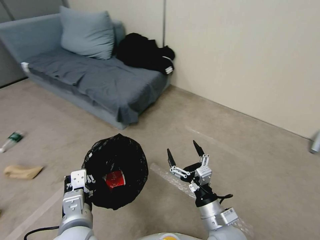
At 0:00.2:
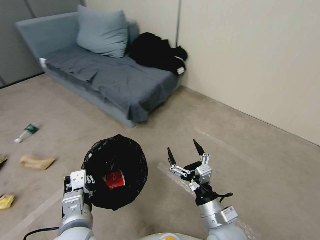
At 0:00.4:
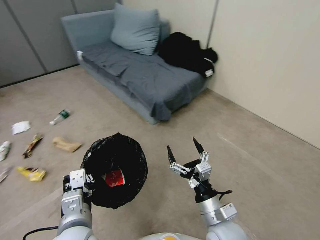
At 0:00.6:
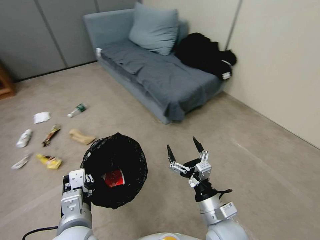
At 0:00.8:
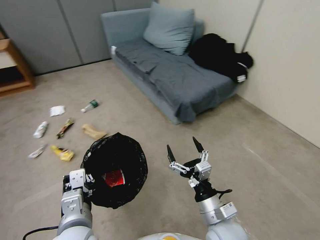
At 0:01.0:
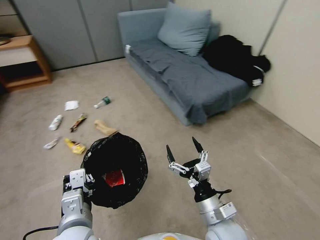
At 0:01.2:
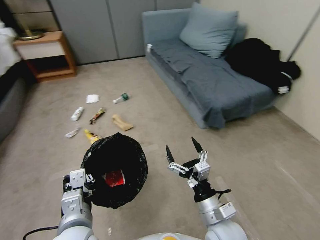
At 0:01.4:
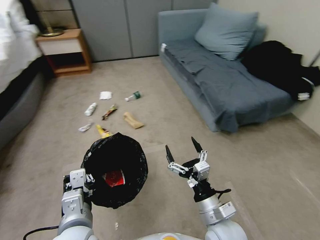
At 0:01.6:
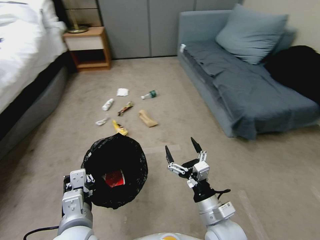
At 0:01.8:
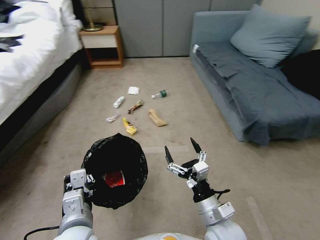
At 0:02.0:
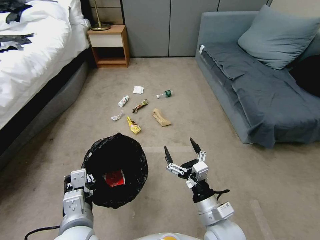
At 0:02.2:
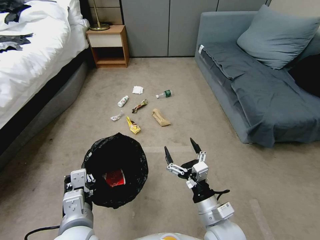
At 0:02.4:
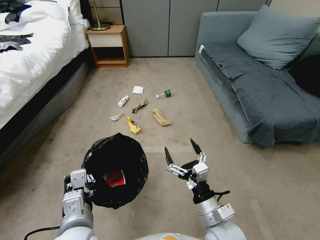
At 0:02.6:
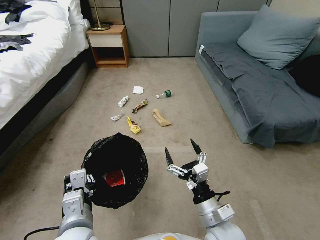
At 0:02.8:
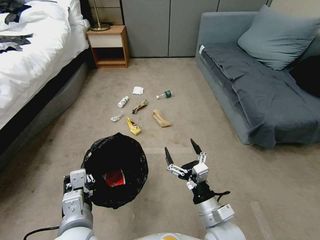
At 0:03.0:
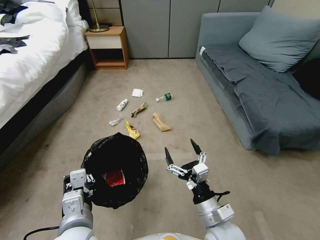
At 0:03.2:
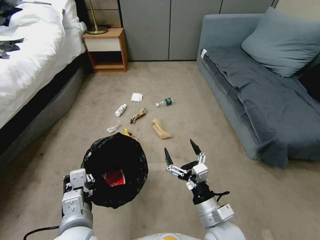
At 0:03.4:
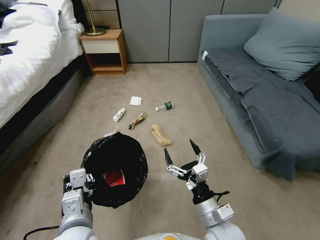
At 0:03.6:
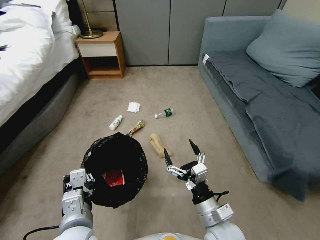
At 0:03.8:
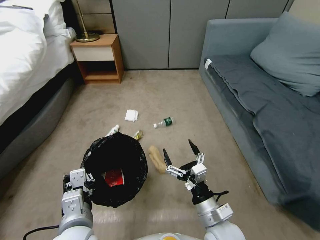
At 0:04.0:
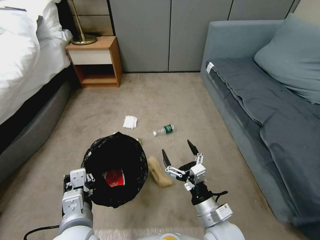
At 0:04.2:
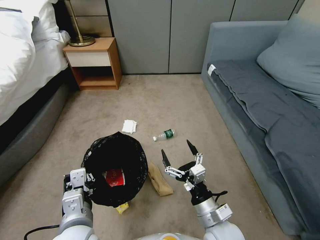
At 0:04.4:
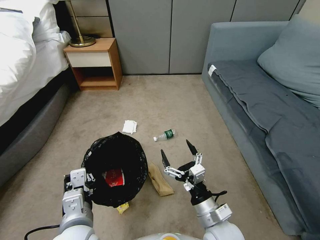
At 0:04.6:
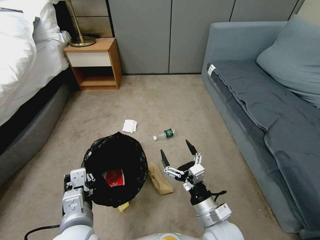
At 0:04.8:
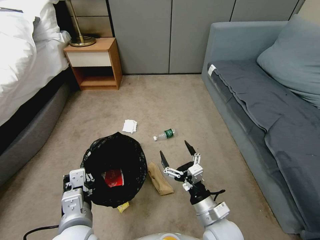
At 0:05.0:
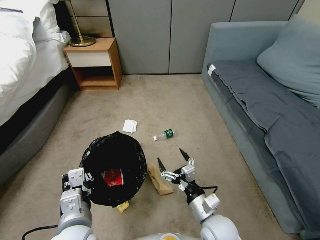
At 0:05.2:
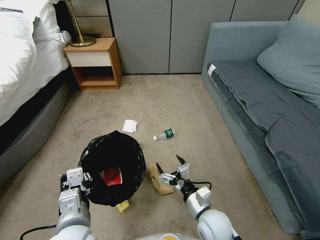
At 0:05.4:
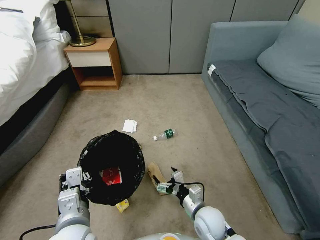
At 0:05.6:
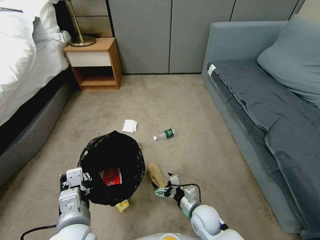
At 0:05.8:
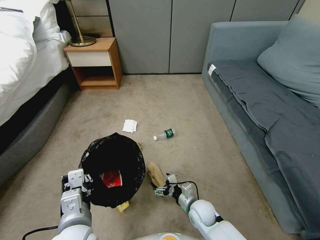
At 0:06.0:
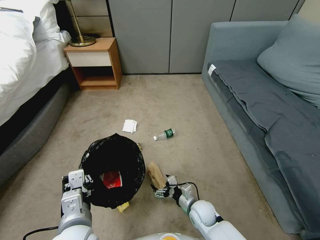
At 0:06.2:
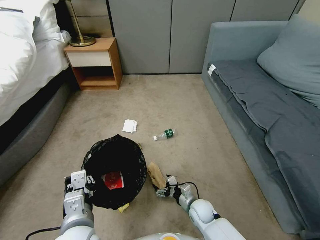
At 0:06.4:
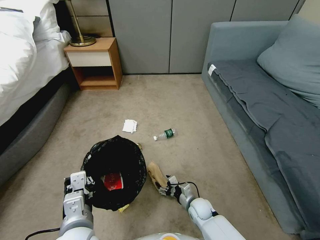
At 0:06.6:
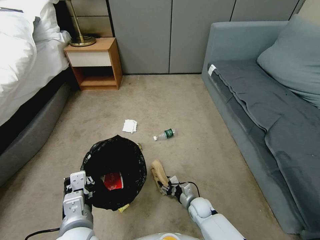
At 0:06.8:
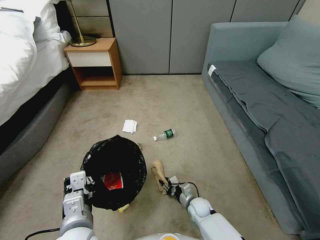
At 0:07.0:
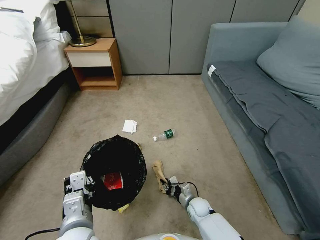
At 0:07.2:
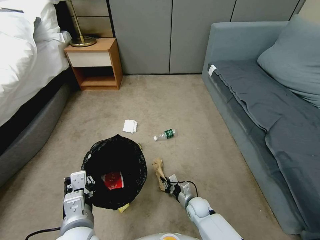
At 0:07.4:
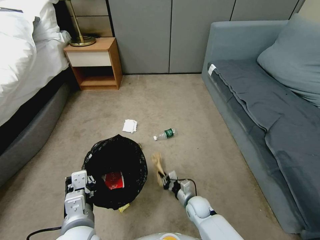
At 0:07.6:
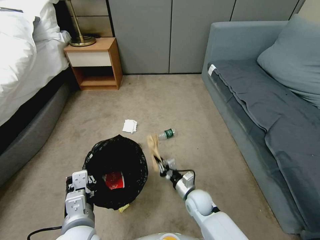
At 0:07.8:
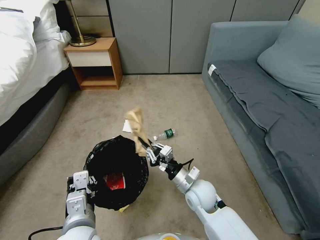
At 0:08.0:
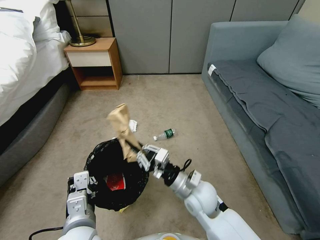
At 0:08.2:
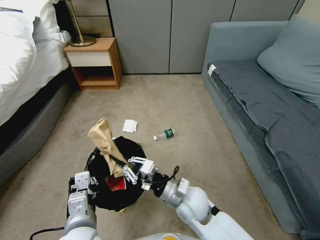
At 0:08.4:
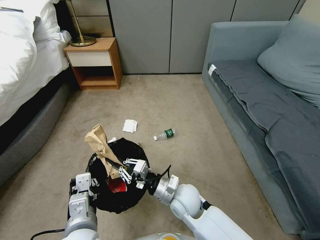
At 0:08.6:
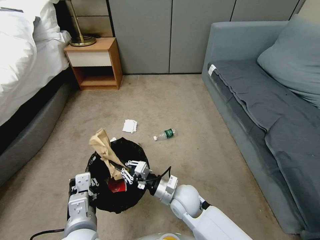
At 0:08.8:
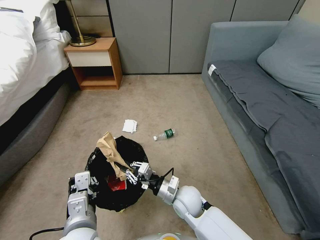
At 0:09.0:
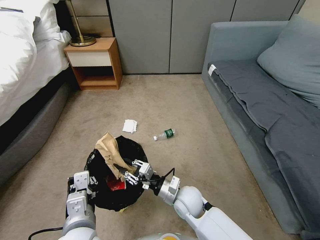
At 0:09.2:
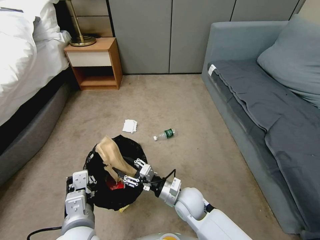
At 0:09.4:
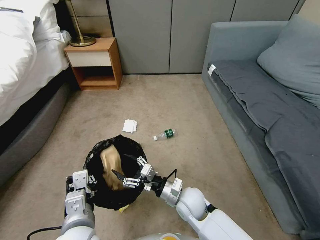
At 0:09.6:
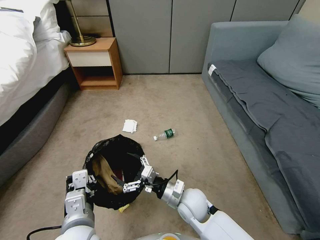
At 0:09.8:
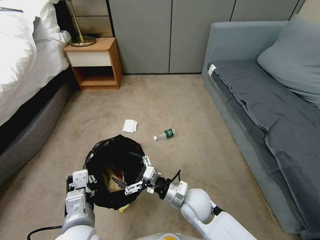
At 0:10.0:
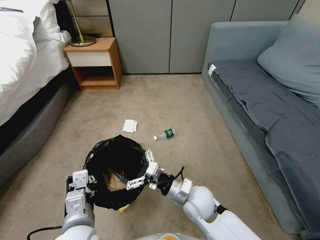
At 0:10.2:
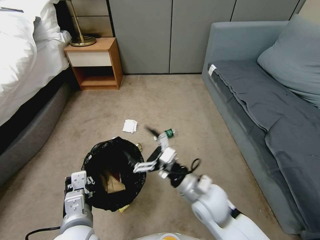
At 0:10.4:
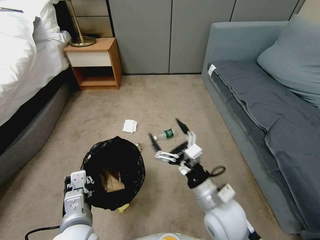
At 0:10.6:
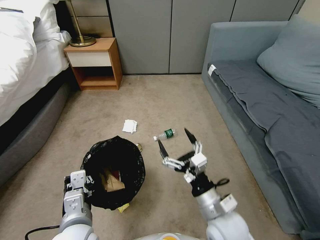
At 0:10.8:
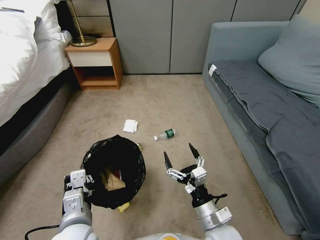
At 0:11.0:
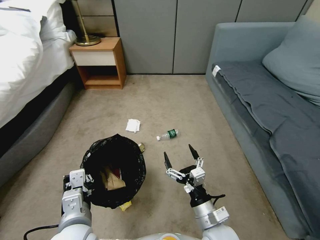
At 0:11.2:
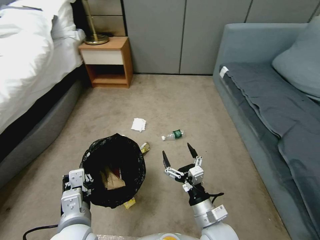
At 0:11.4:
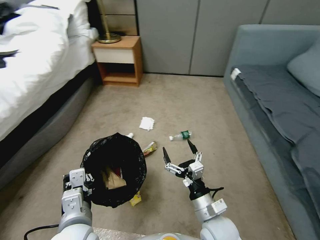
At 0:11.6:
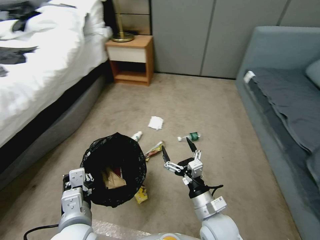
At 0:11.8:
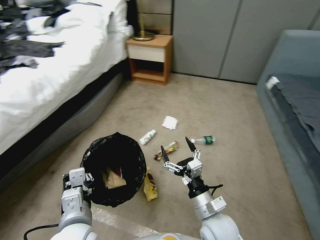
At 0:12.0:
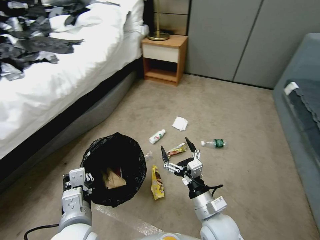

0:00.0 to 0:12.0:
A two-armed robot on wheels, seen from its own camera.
Task of the whole recording: Pick up the trash bin, then pick up the garbage from the floor and place it into the trash bin.
0:04.4 to 0:06.0: The right gripper is displaced downward and forward by about 20 cm.
0:06.0 to 0:07.6: The right gripper travels downward and back again, some 10 cm each way, and closes.
0:07.6 to 0:09.0: The right gripper travels upward and to the left by some 10 cm.
0:09.0 to 0:10.4: The right gripper travels upward, backward and to the right by some 15 cm, and opens up.
0:10.4 to 0:12.0: The right gripper goes some 5 cm downward.

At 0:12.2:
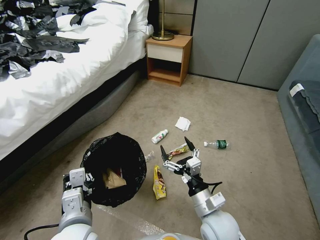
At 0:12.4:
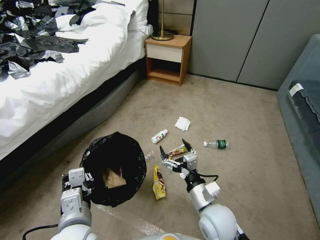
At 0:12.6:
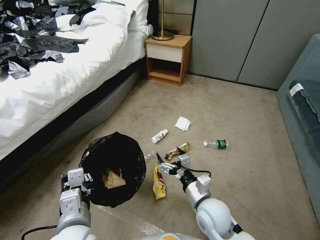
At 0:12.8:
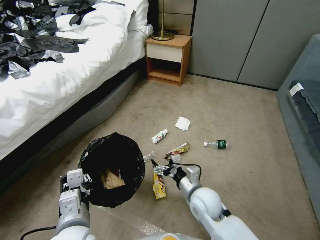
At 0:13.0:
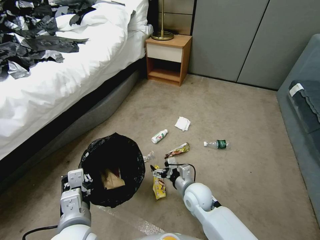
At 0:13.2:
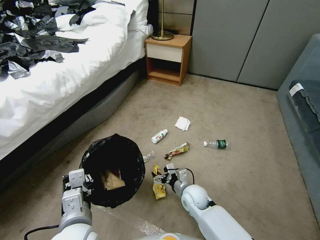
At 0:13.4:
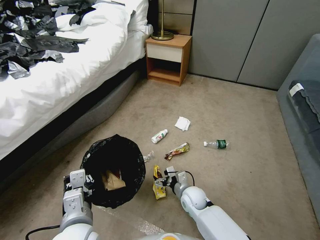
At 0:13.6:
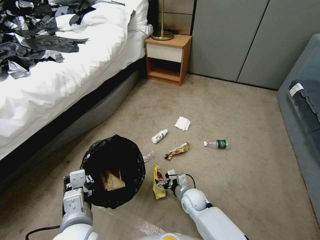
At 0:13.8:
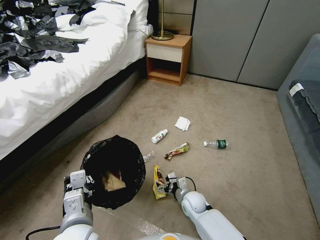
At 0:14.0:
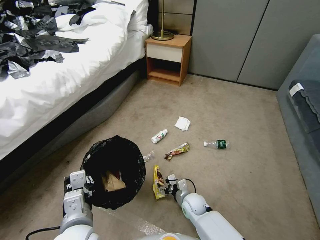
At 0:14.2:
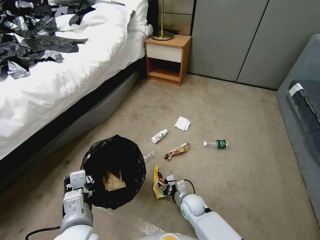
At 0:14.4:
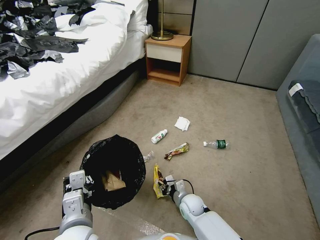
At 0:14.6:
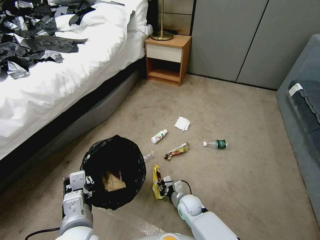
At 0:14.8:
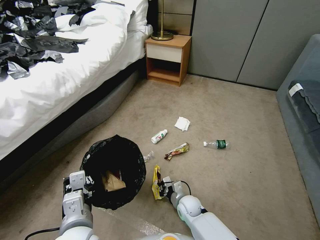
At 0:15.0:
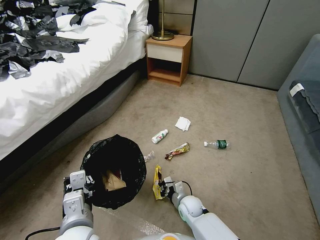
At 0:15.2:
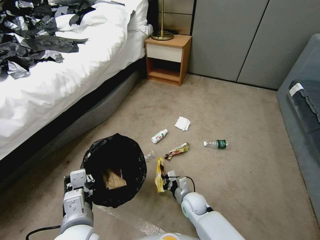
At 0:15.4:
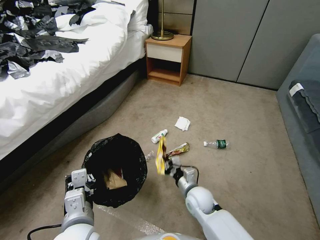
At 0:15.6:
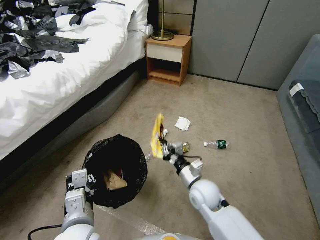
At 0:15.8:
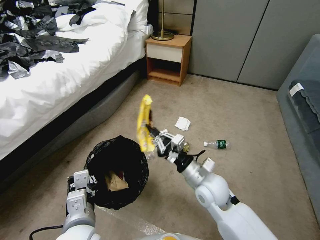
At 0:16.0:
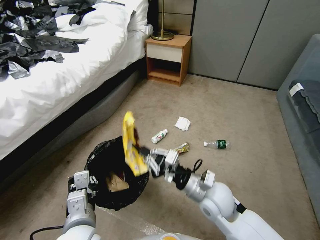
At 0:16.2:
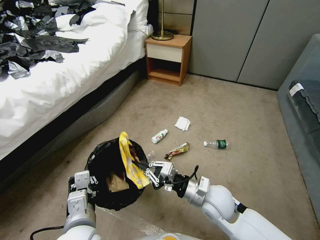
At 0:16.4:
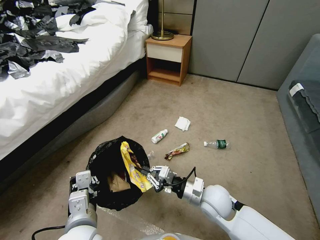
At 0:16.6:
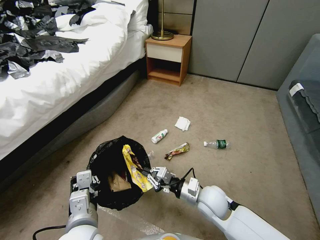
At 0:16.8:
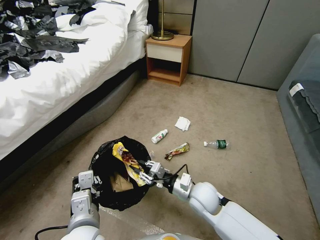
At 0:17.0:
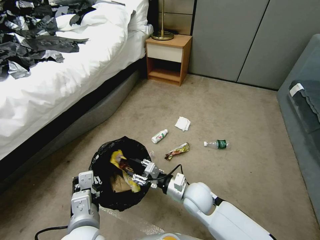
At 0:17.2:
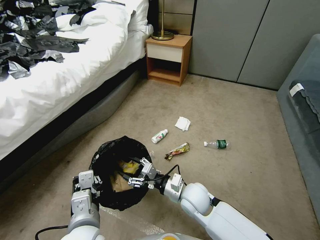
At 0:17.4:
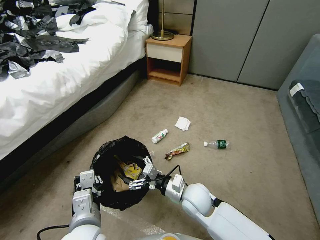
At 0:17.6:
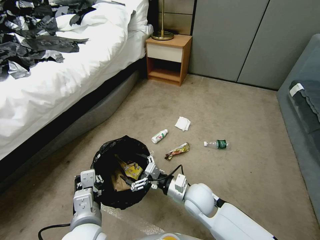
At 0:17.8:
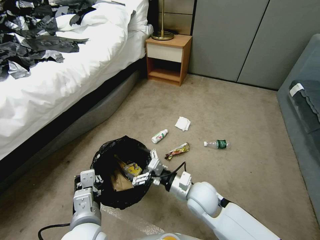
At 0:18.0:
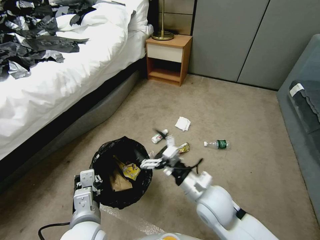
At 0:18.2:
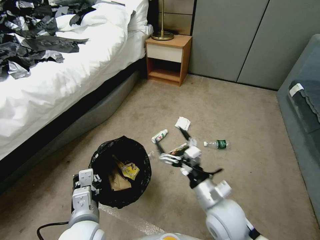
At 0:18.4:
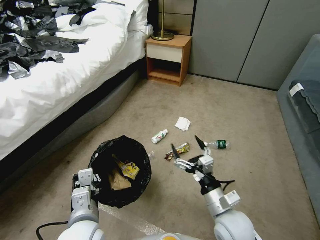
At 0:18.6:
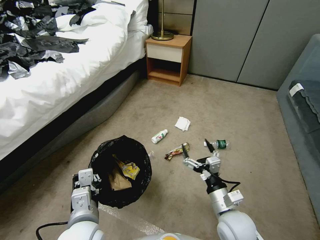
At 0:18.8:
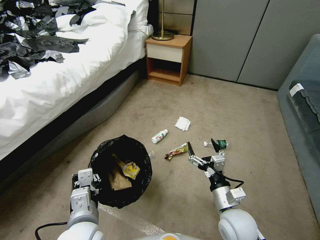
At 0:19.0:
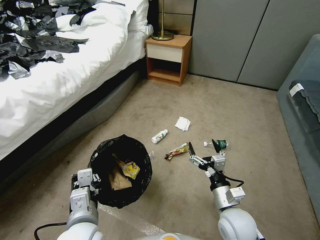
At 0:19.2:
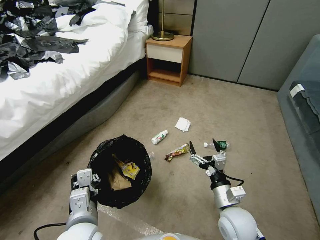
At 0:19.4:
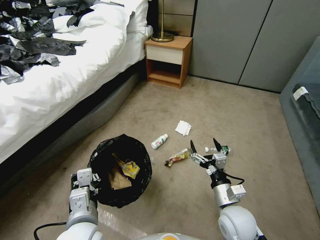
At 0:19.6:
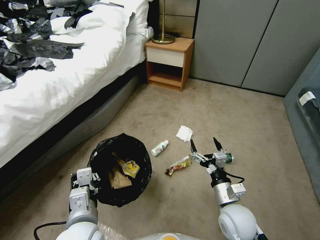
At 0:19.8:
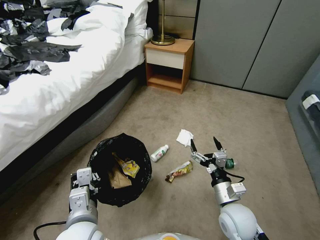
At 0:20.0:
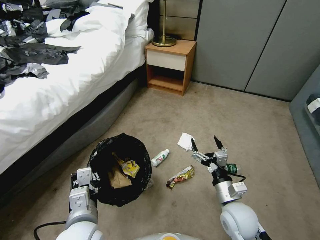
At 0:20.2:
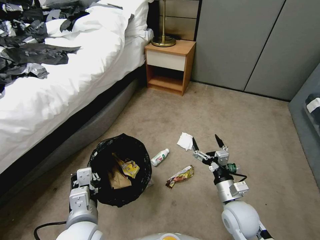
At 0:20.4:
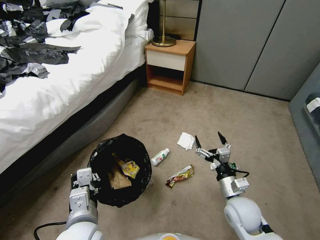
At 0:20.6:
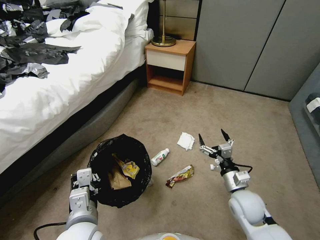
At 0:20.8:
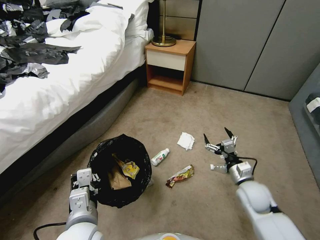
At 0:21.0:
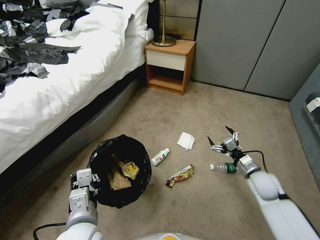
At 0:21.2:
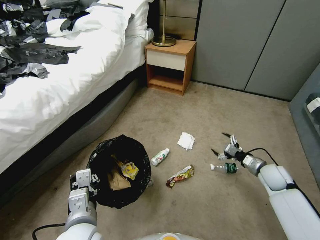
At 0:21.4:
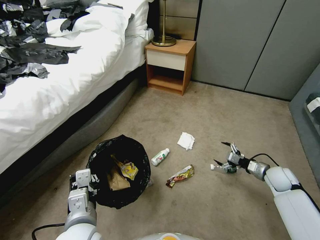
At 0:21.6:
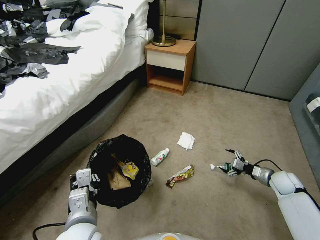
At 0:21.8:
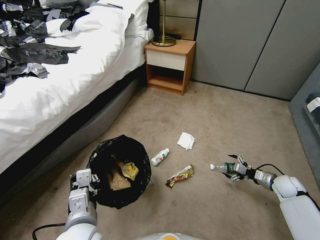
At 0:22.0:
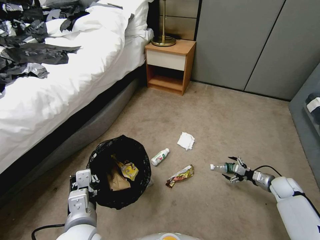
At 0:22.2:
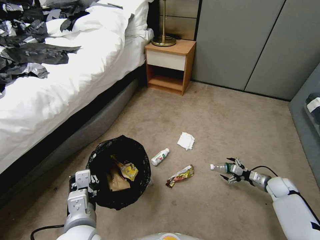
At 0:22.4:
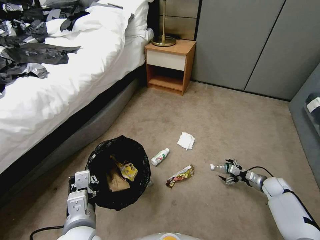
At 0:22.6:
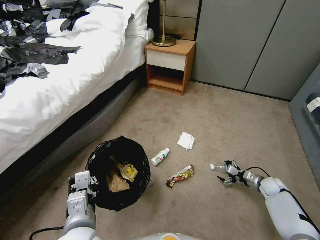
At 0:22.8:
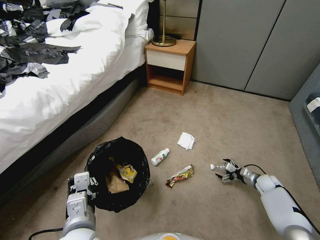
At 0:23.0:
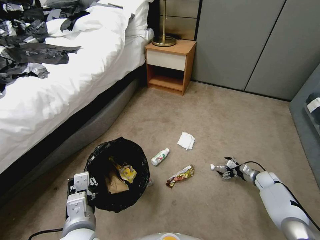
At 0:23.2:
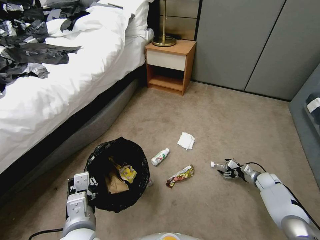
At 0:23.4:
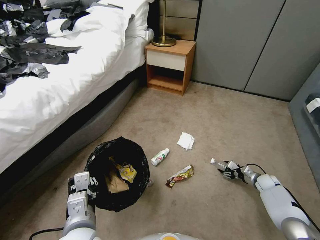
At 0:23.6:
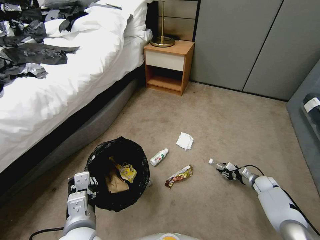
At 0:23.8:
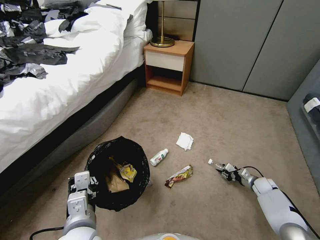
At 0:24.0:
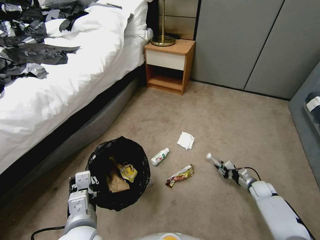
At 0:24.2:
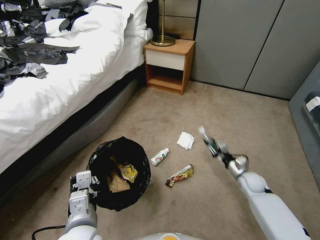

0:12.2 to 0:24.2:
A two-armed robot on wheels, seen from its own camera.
Task of the whole recording: Pick up the trash bin, then pick up the garbage from the floor and place it into the trash bin.
0:12.2 to 0:13.8: The right gripper goes about 20 cm downward and forward.
0:13.8 to 0:15.2: The right gripper closes.
0:15.2 to 0:16.6: The right gripper goes about 15 cm upward.
0:16.6 to 0:18.2: The right gripper travels upward and backward by some 10 cm, and opens up.
0:18.2 to 0:19.8: The right gripper moves downward and to the right, approximately 10 cm.
0:19.8 to 0:21.2: The right gripper shifts approximately 25 cm to the right and forward.
0:21.2 to 0:22.6: The right gripper is displaced downward and to the right by some 15 cm.
0:22.6 to 0:24.2: The right gripper shifts some 10 cm to the left, and closes.
